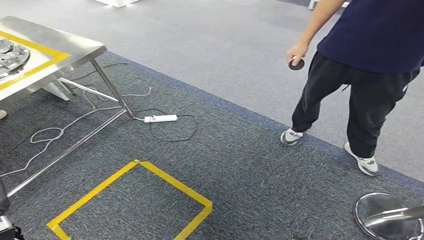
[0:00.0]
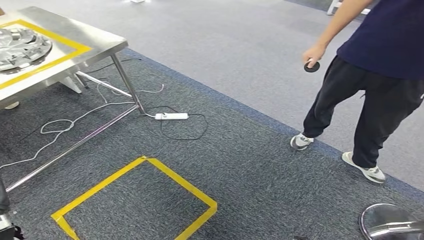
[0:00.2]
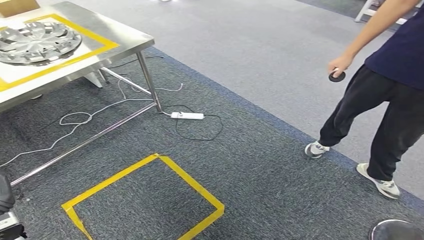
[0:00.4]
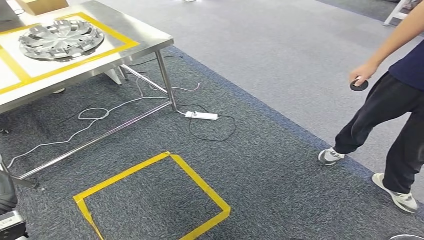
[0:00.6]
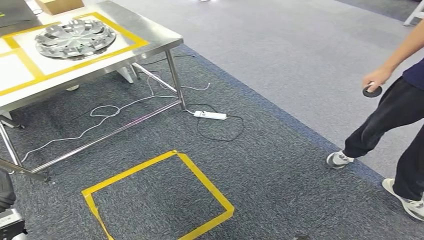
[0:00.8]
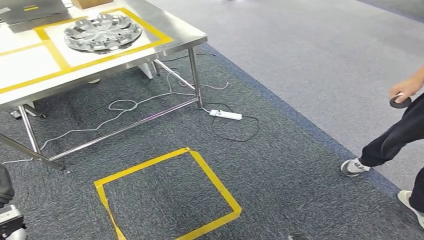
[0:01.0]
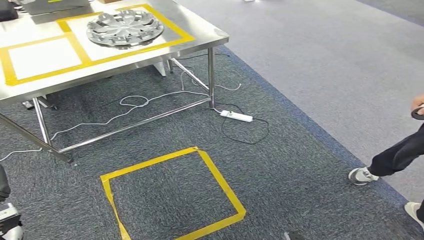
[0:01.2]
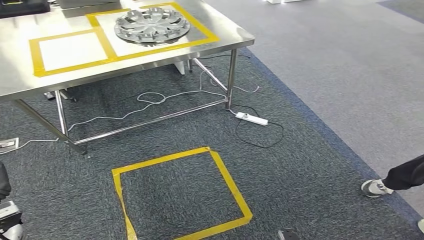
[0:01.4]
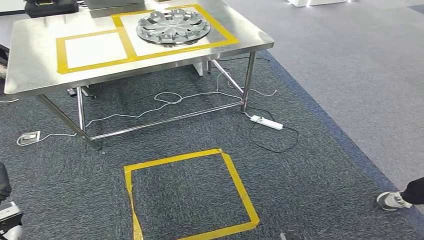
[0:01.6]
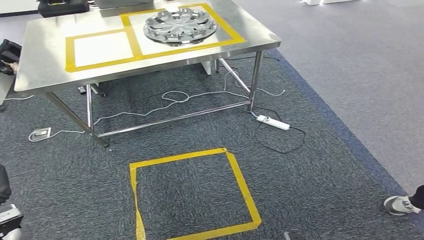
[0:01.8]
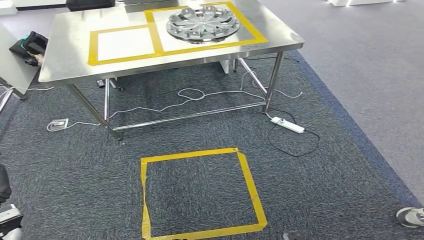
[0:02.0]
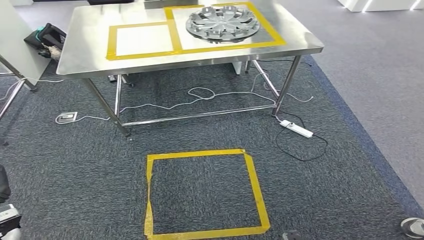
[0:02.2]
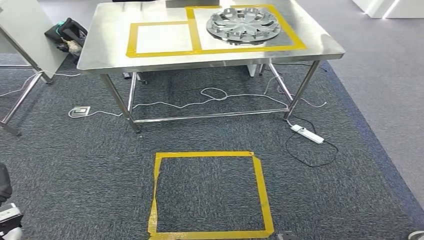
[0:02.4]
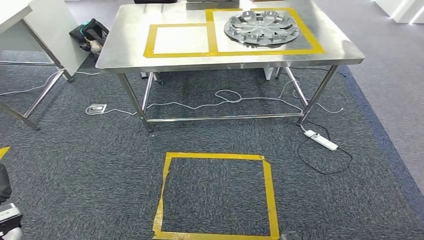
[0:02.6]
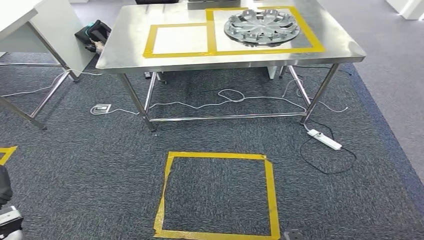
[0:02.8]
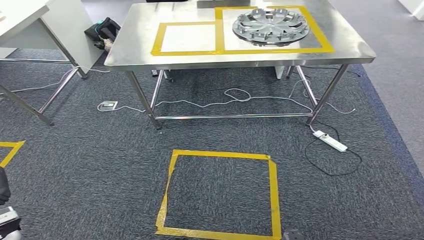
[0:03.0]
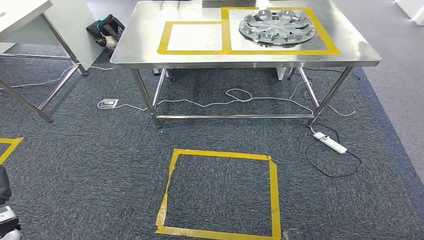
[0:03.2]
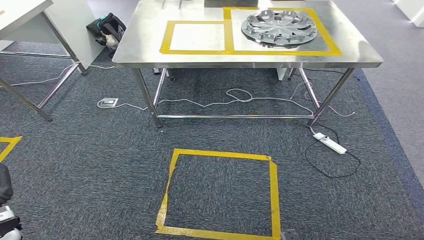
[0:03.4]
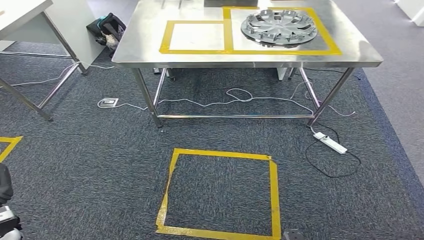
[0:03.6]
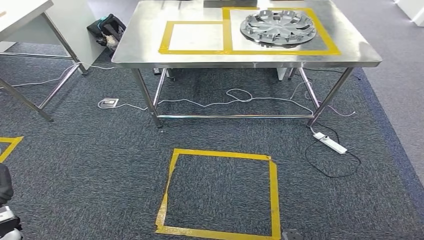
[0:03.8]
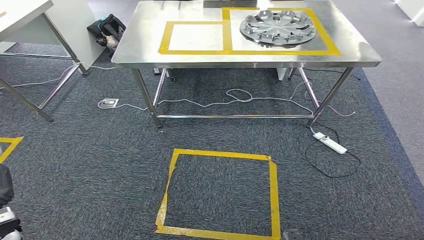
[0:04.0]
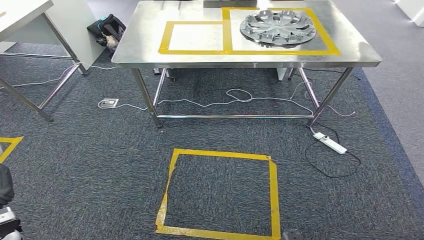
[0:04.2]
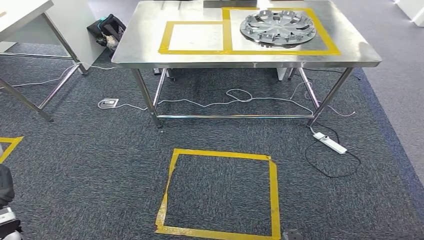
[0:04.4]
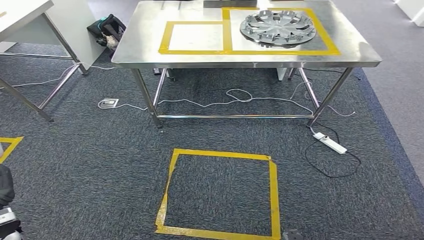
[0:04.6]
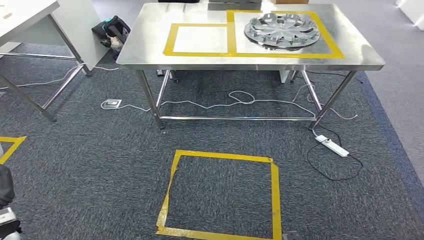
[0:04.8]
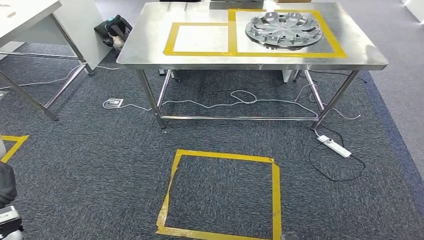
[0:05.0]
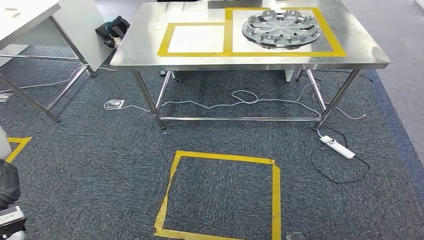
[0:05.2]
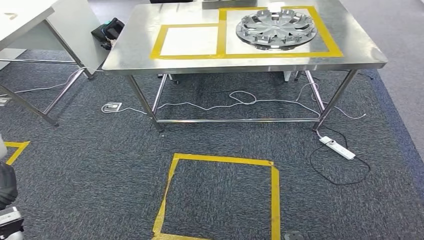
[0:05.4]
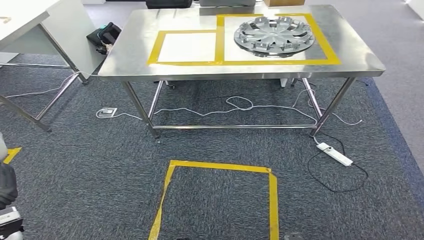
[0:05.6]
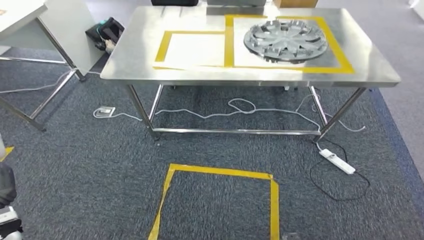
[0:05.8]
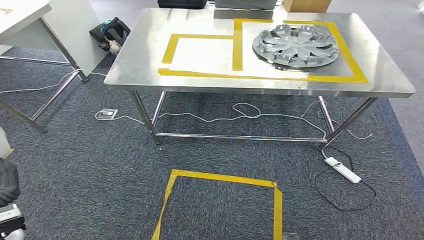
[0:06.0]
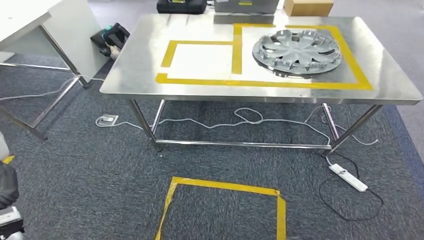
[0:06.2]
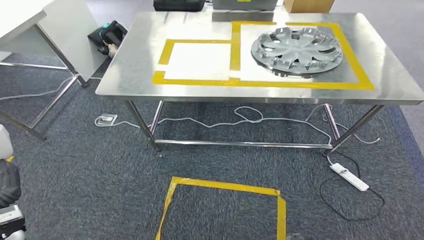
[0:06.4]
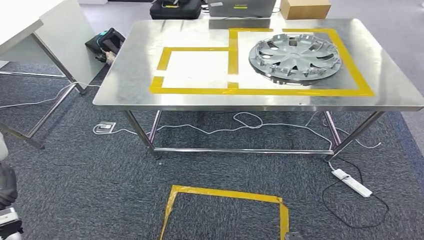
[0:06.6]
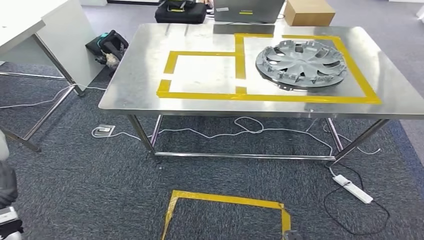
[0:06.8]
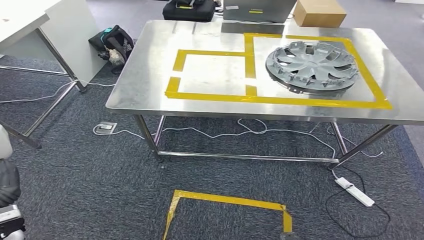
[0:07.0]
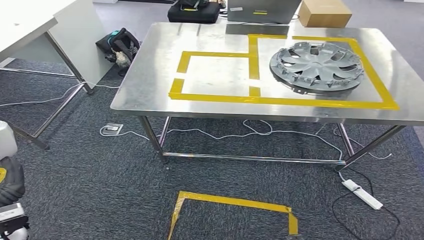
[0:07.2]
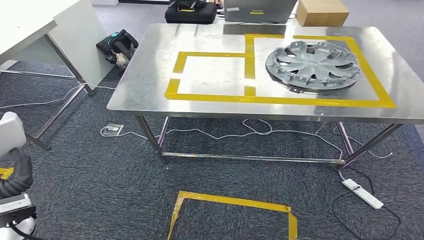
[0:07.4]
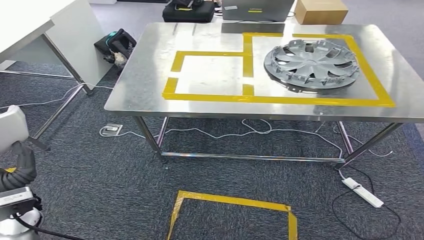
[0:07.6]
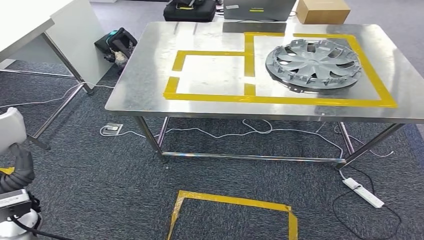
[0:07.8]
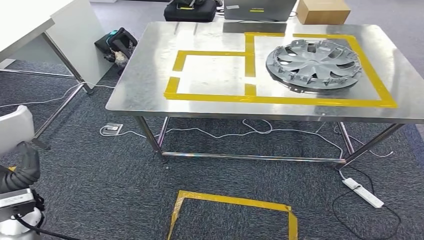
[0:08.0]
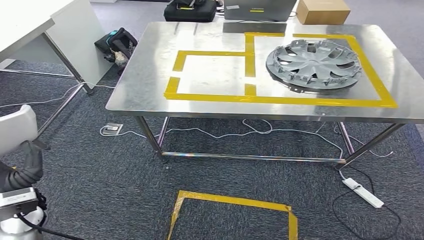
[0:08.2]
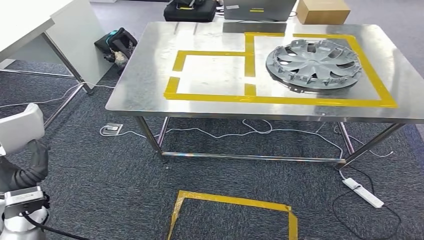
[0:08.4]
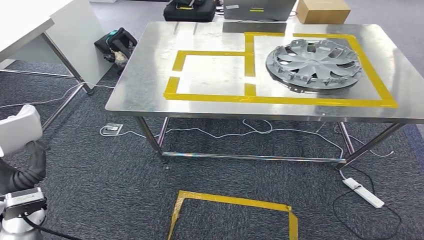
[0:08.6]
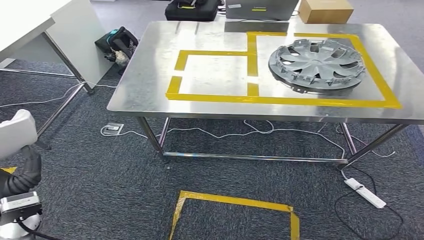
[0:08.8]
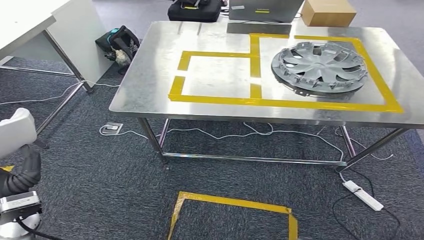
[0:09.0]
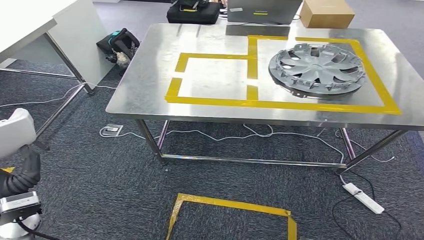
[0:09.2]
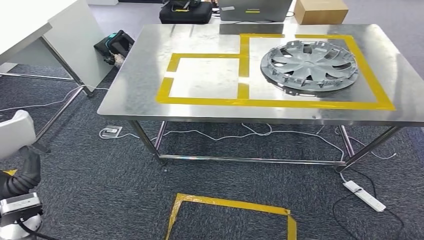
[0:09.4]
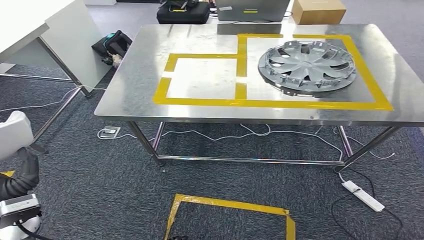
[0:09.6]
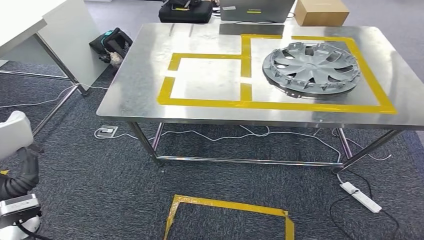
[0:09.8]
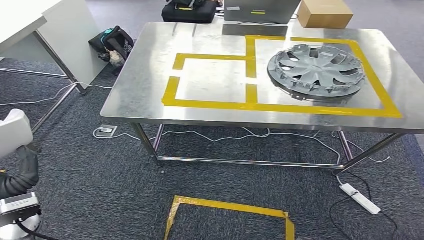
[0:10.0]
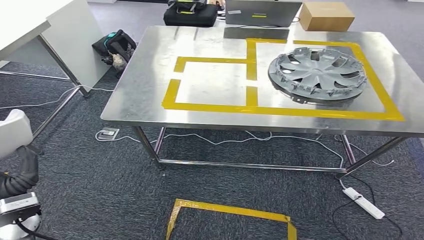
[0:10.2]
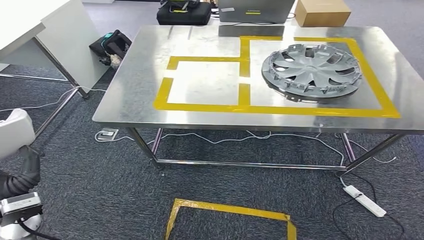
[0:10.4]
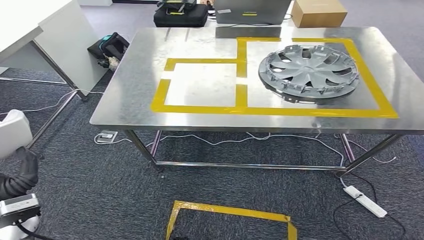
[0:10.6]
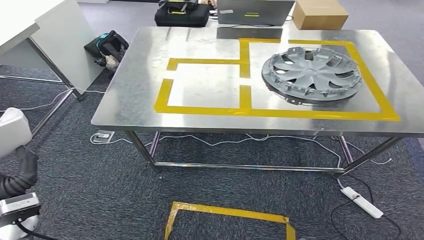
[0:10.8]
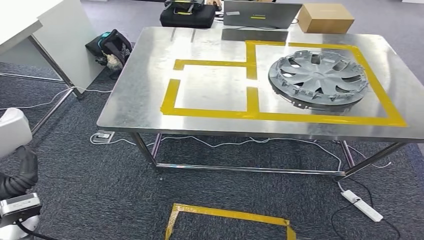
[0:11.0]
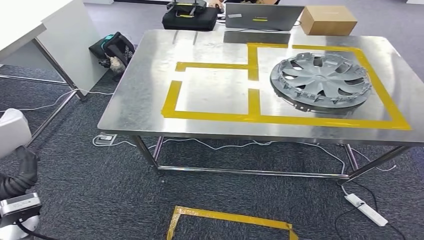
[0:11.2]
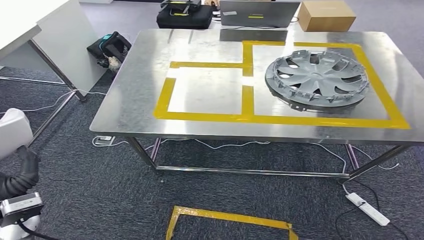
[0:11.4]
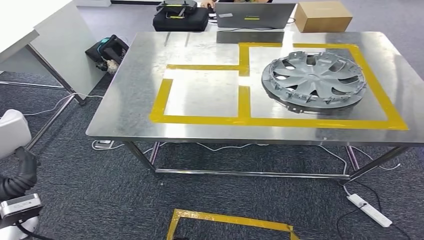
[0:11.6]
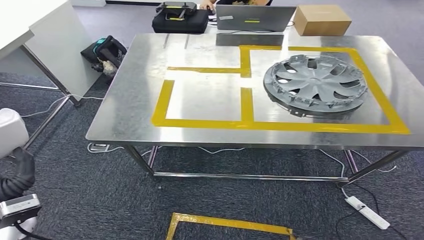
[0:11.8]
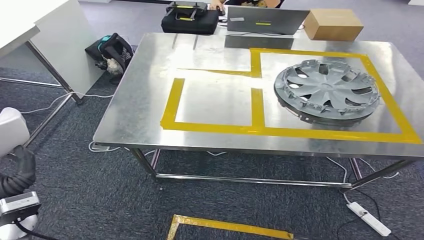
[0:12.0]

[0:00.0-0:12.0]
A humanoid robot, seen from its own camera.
Step, 0:00.0 to 0:10.4: Bring the small component to the front of the workbench.
0:03.0 to 0:04.4: Both hands stay about where they are.

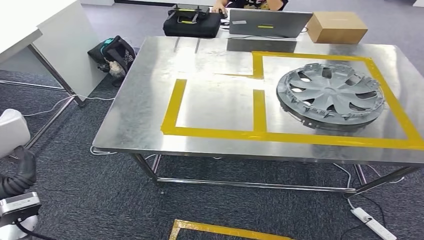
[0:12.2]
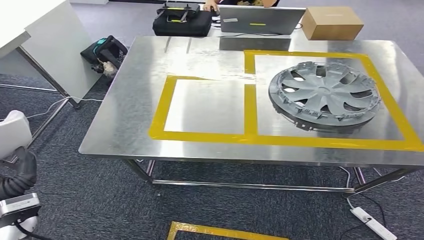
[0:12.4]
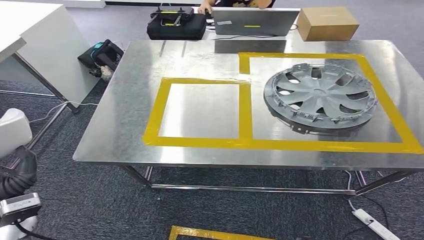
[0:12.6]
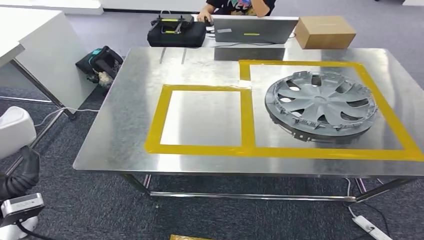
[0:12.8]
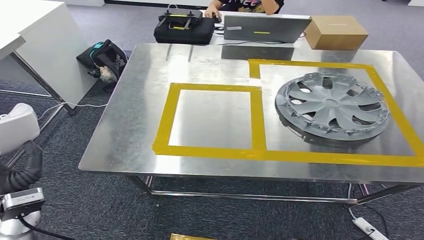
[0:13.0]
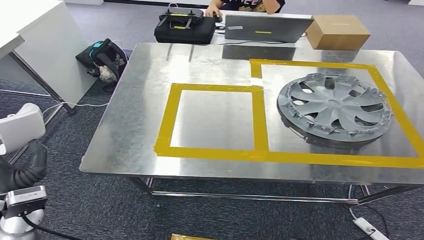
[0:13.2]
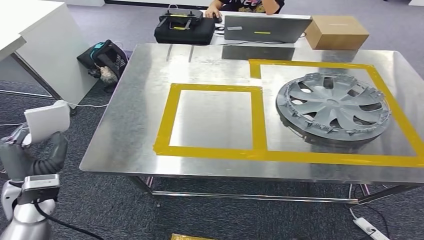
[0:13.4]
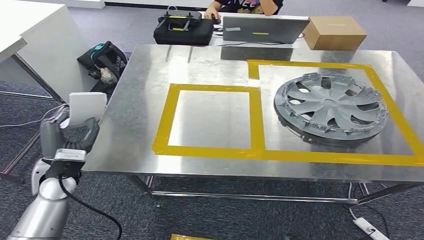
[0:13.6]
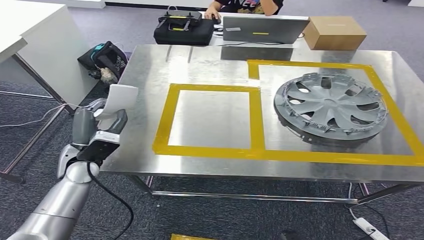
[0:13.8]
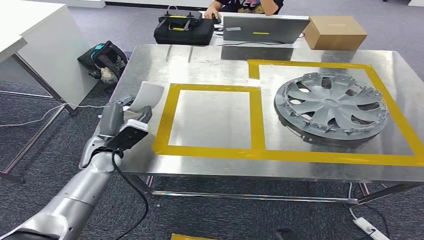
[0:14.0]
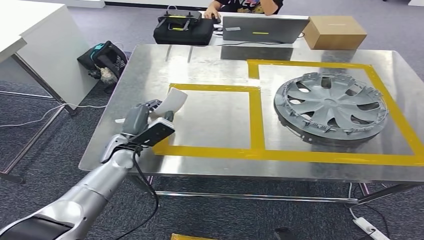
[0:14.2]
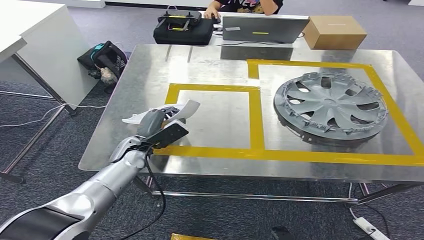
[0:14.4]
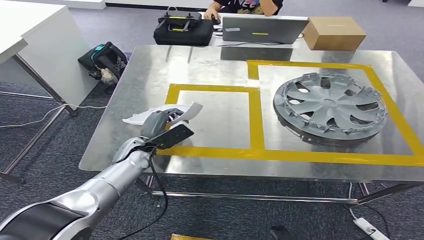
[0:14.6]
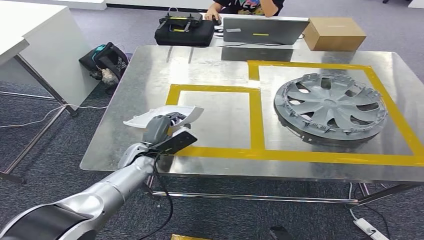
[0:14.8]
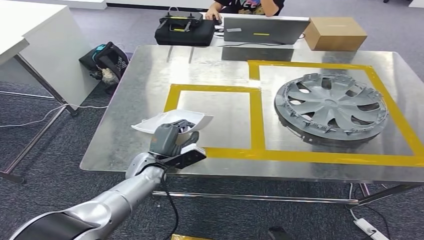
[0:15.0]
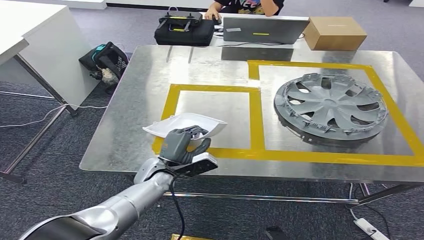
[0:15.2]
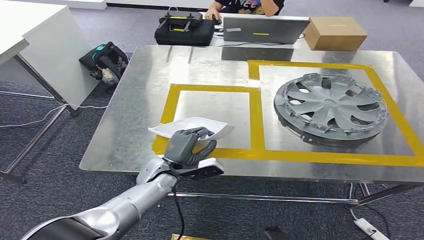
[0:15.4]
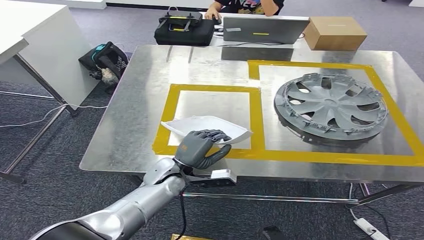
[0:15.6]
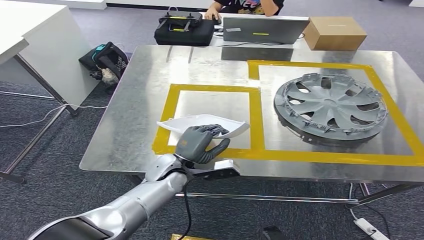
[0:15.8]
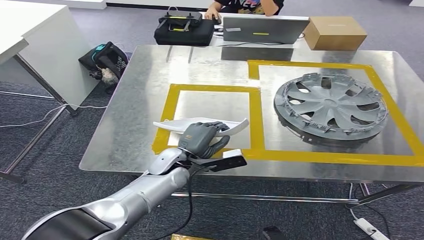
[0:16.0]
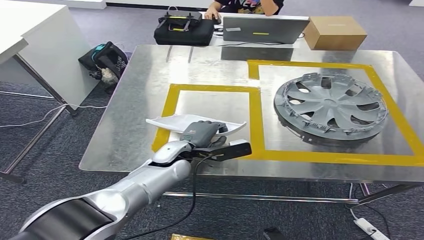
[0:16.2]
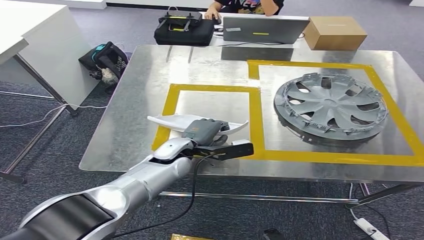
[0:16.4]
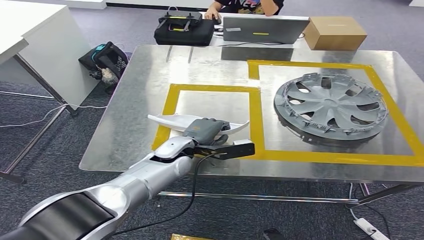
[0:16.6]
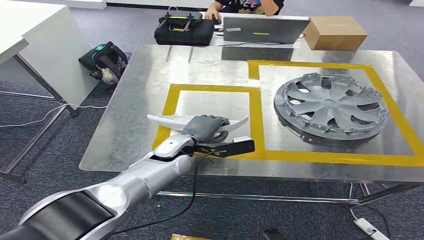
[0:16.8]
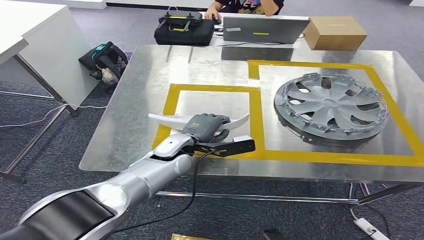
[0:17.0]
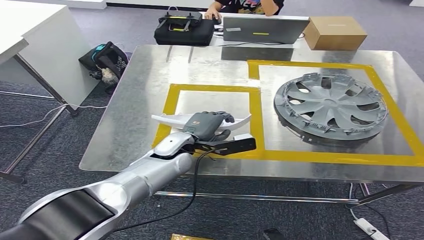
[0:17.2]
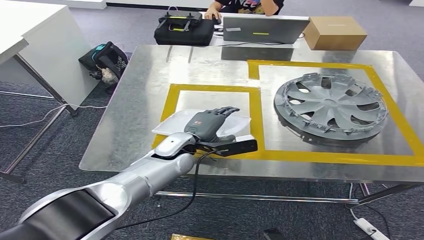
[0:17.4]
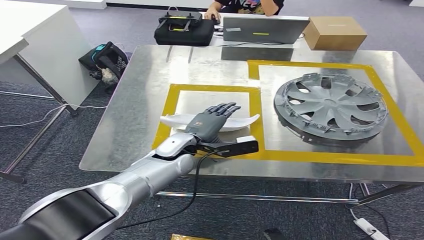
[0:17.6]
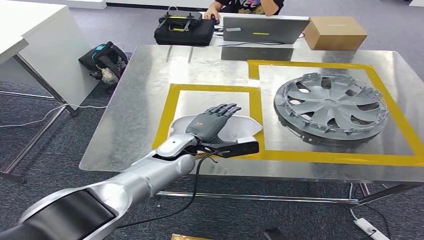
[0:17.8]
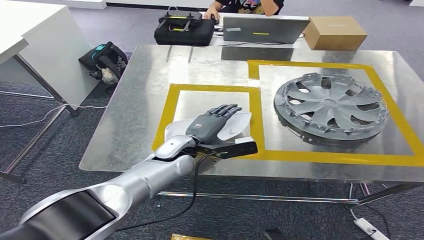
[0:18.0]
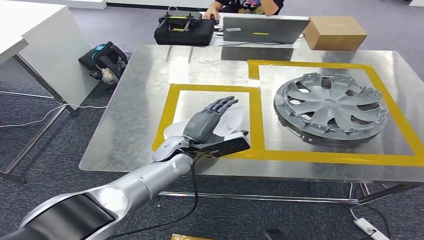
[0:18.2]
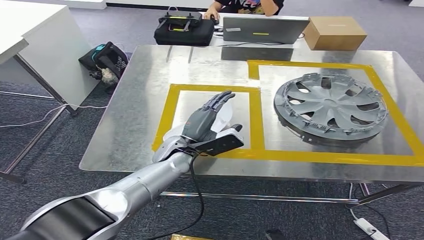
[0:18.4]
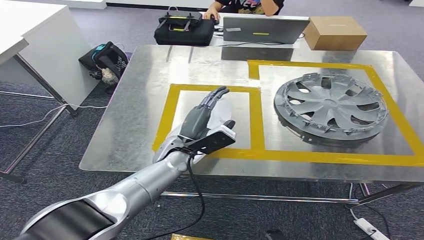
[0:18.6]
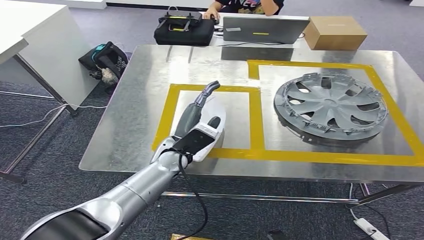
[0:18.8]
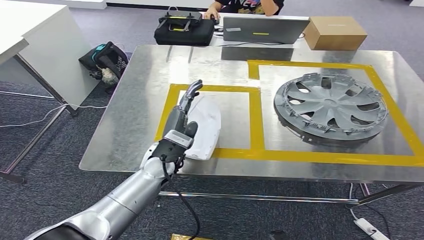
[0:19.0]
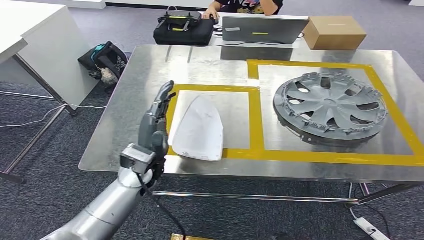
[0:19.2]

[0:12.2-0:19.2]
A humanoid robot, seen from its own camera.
0:13.6 to 0:15.0: The left hand goes roughly 15 cm to the right, downward and forward.
0:15.0 to 0:16.4: The left hand is displaced to the right and upward by roughly 10 cm.
0:16.4 to 0:17.8: There are only small adjustments of the hands.
0:17.8 to 0:19.2: The left hand travels backward by about 5 cm.
